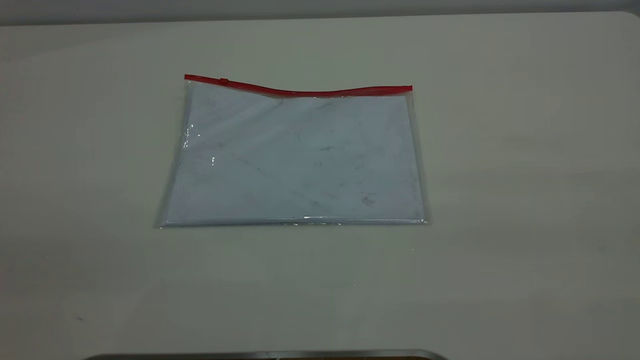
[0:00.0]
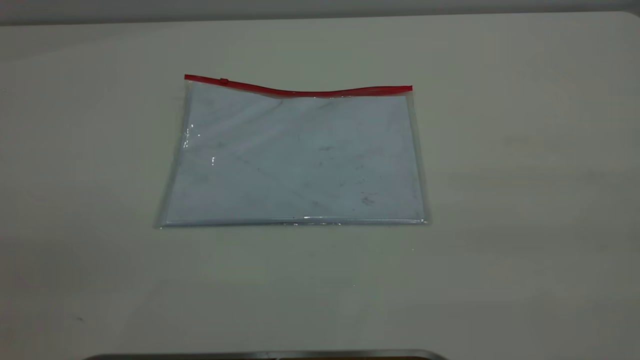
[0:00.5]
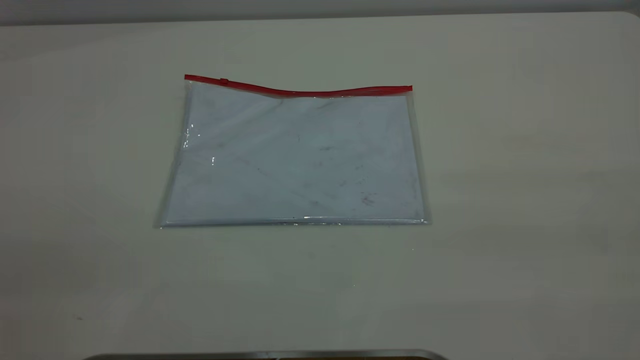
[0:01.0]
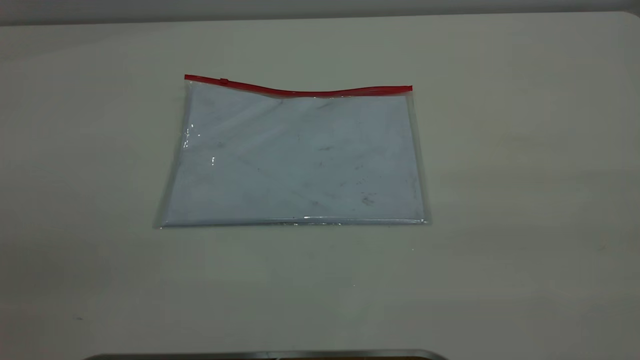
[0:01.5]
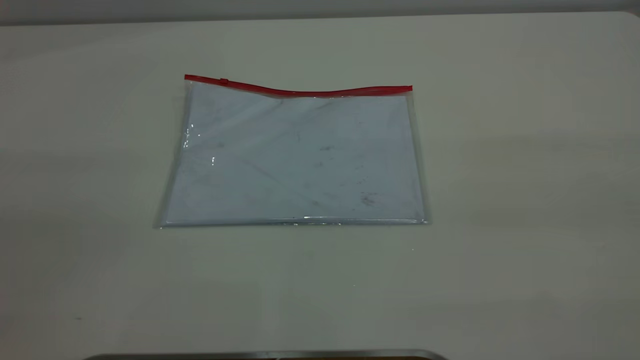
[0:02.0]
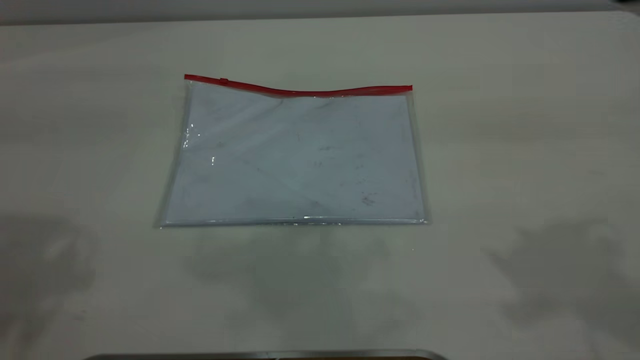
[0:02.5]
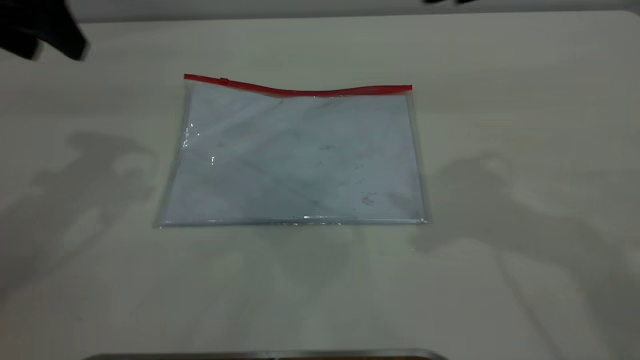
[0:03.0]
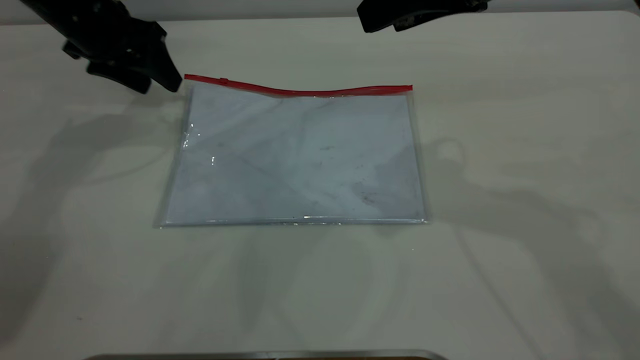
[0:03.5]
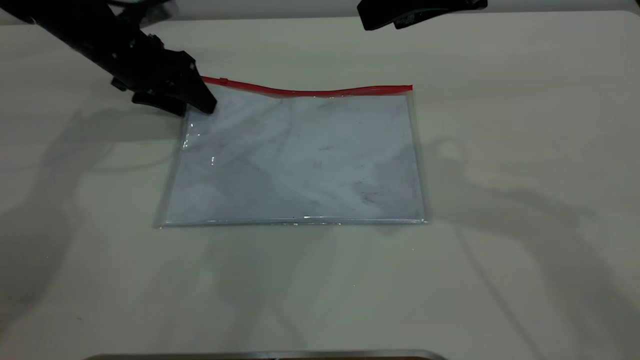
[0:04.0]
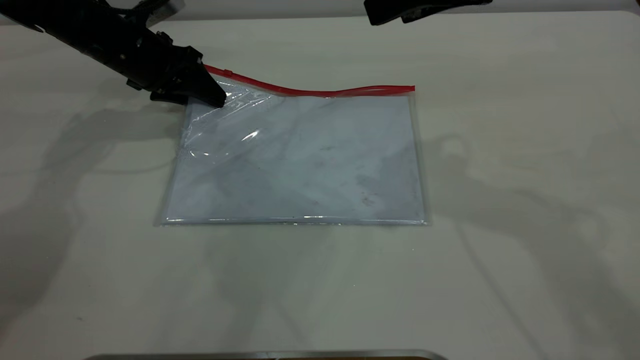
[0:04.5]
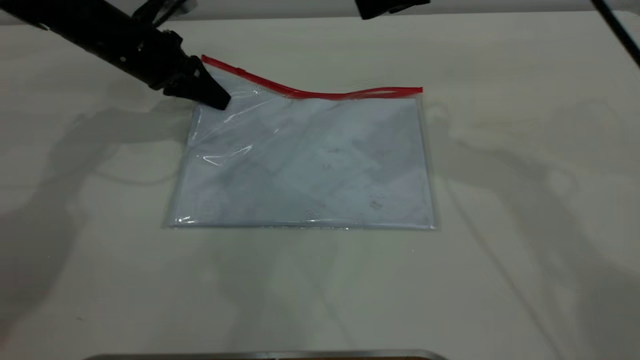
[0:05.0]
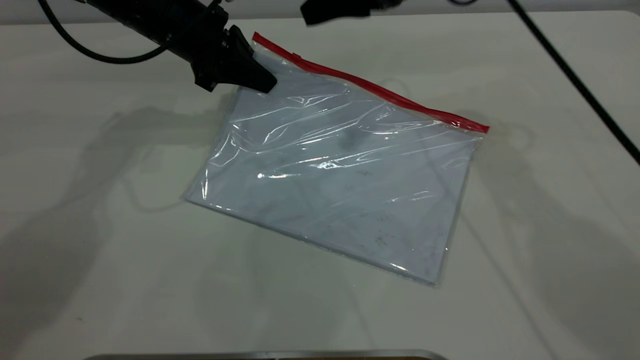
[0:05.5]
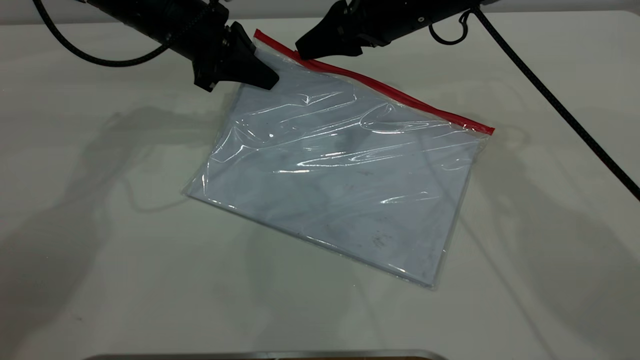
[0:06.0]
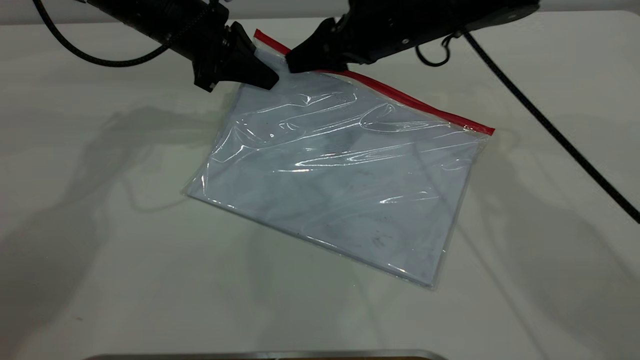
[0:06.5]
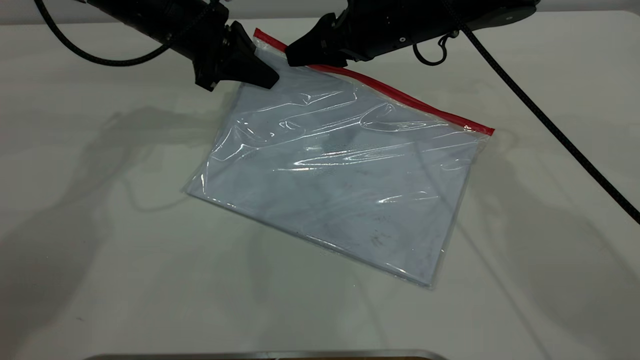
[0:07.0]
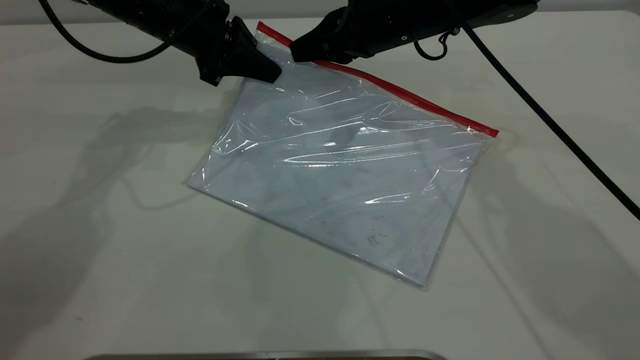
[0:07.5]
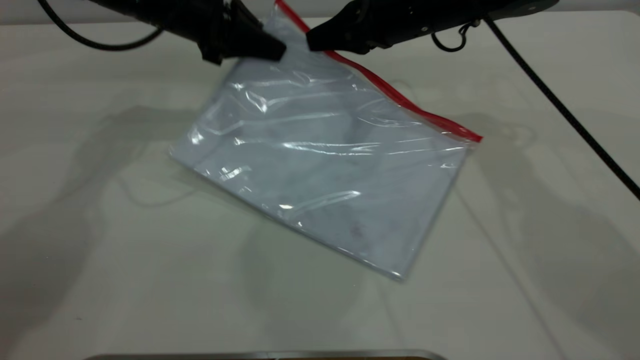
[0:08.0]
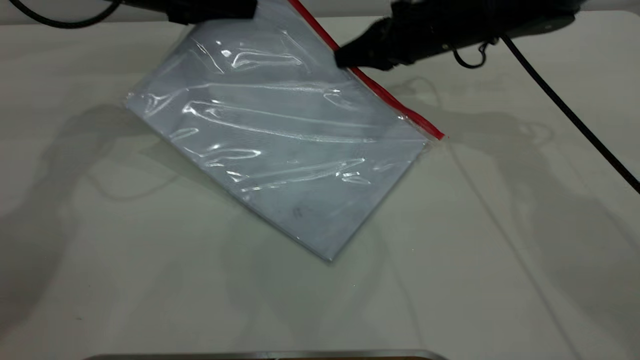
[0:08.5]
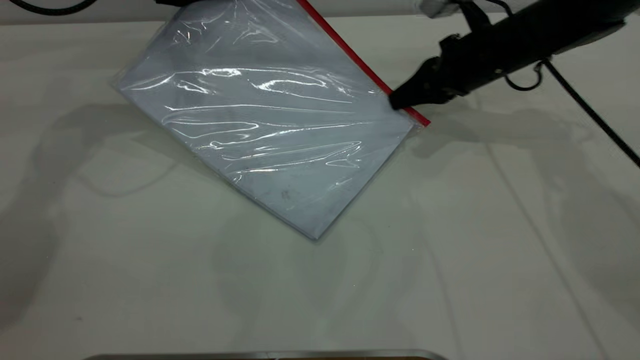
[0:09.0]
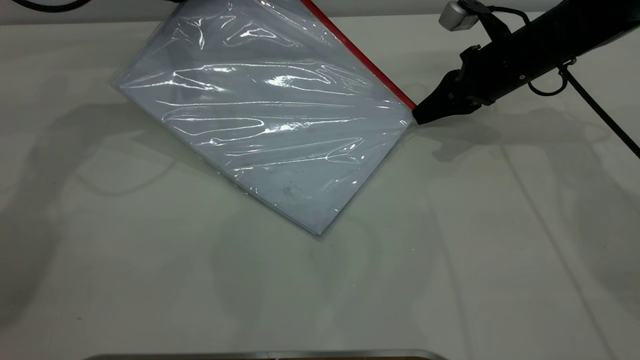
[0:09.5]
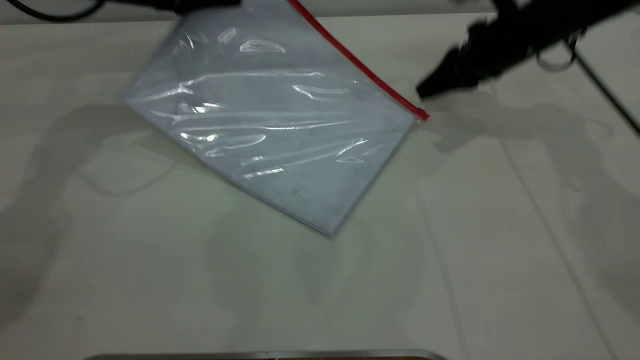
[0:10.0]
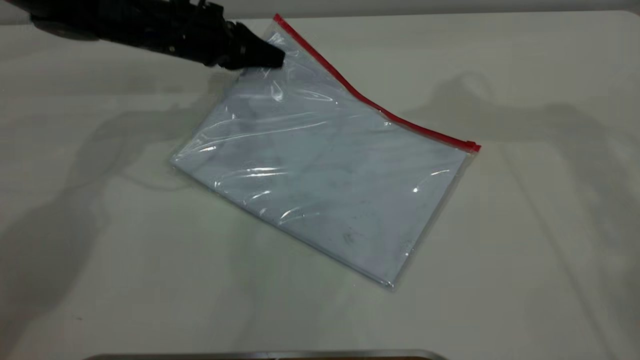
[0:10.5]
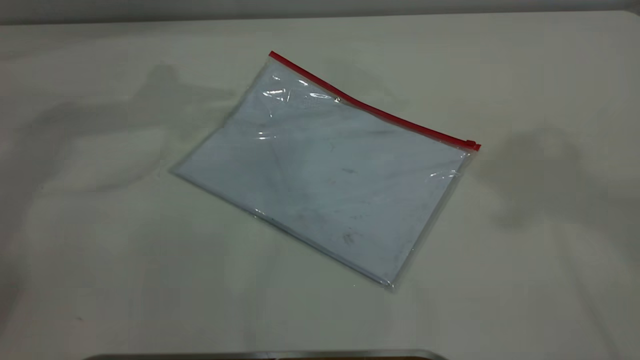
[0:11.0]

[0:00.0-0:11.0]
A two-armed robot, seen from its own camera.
Step, 0:00.0 to 0:05.0: Pick up the transparent plastic bag with the left gripper.
Step, 0:05.5 to 0:10.0: Pulling up the zipper on the transparent plastic bag with the right gripper to close it.
0:02.0 to 0:03.5: The left gripper heads forward and downward, covering roughly 50 cm. Meanwhile the right gripper shifts roughly 30 cm forward, to the left and downward.
0:03.5 to 0:05.5: The left gripper heads to the right, covering about 10 cm, and closes up. Meanwhile the right gripper heads forward and downward, covering some 15 cm.
0:05.5 to 0:07.5: The right gripper moves downward, some 5 cm, and closes its fingers.
0:07.5 to 0:09.0: The right gripper moves to the right and downward, roughly 15 cm, while the left gripper shifts approximately 5 cm to the left.
0:09.0 to 0:11.0: The left gripper shifts about 15 cm upward, and opens up. The right gripper travels upward by roughly 40 cm, and opens.
